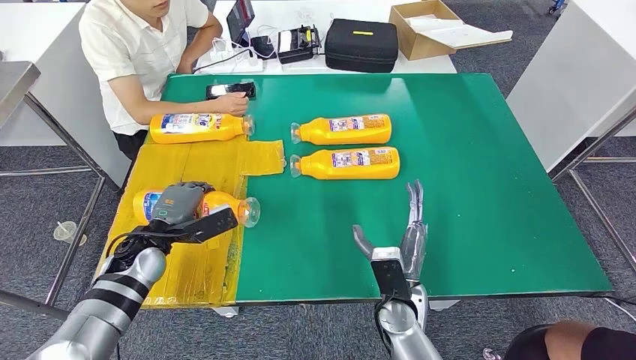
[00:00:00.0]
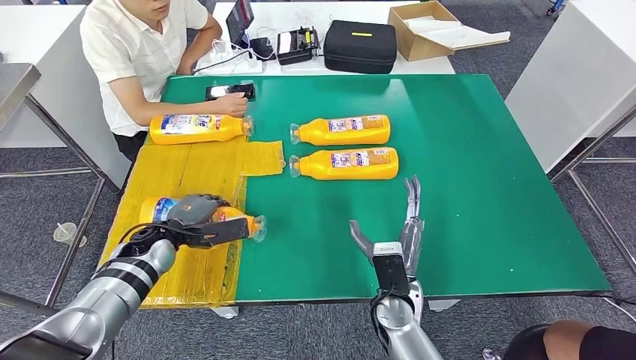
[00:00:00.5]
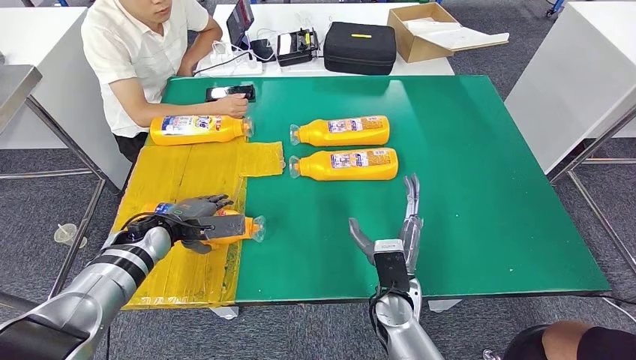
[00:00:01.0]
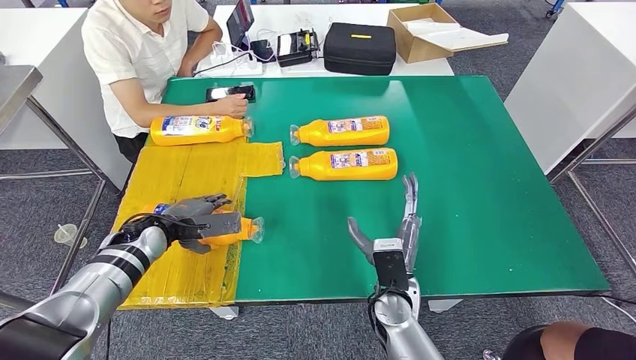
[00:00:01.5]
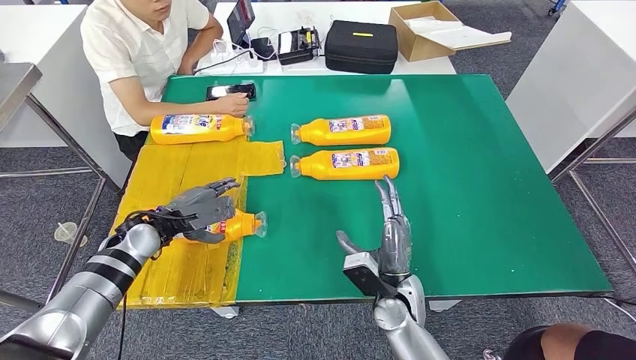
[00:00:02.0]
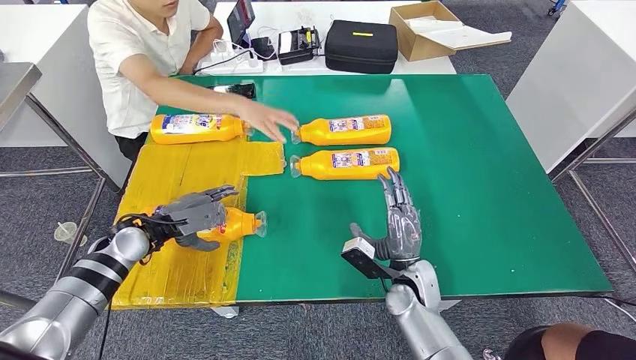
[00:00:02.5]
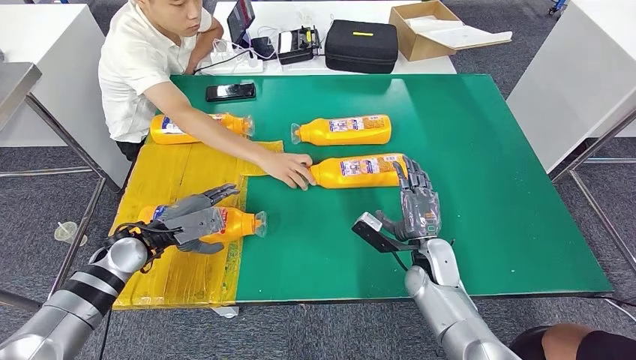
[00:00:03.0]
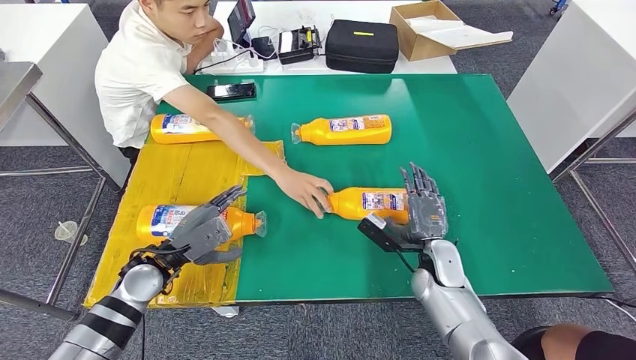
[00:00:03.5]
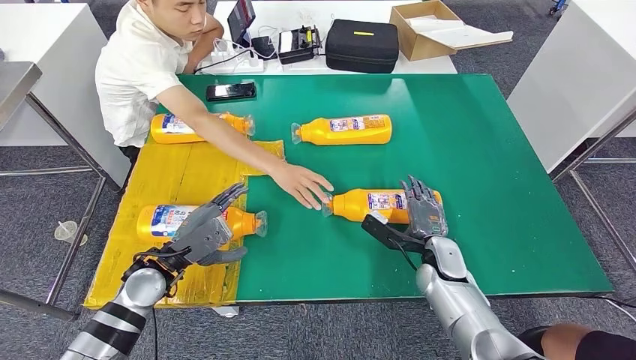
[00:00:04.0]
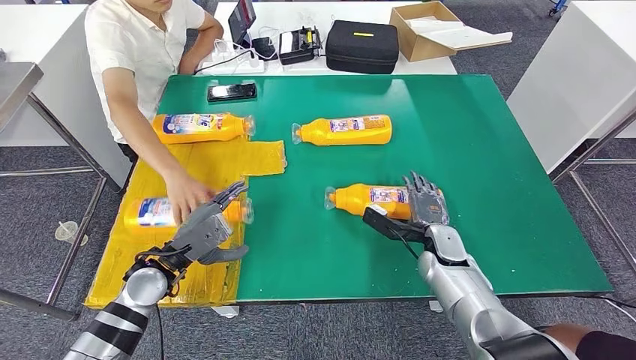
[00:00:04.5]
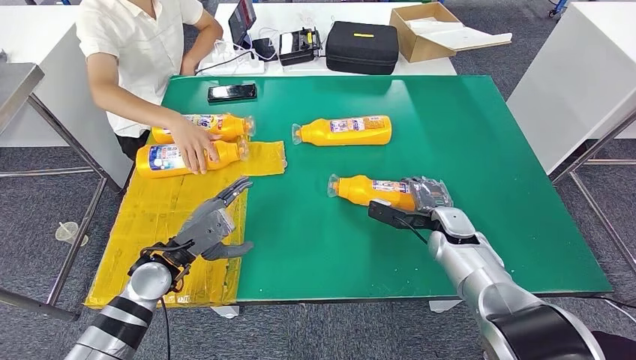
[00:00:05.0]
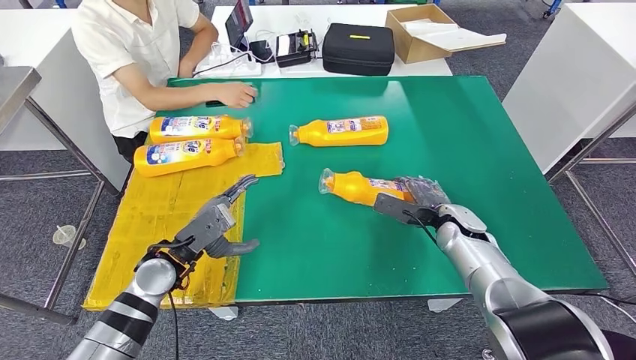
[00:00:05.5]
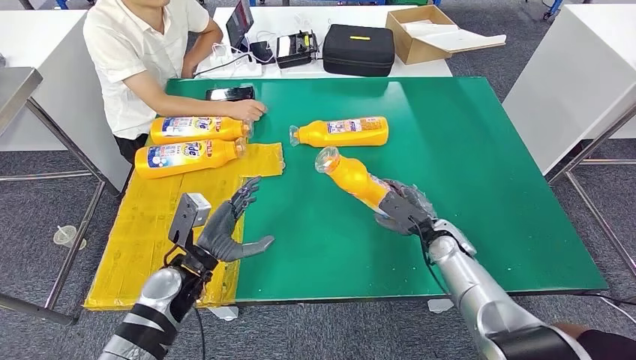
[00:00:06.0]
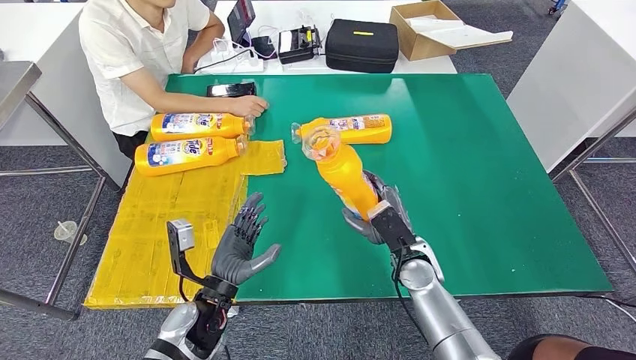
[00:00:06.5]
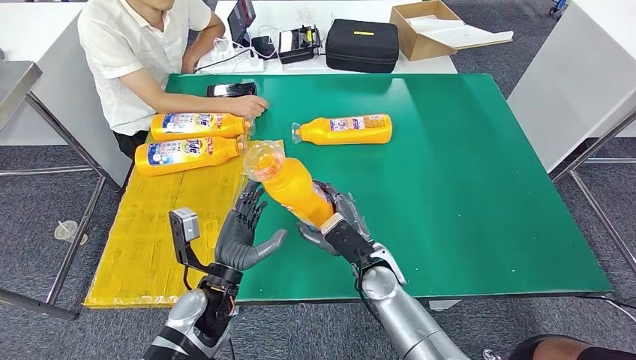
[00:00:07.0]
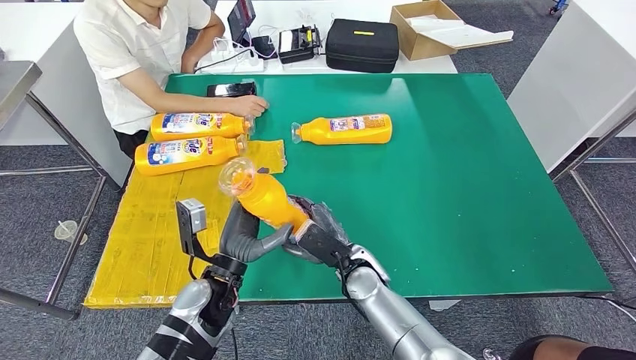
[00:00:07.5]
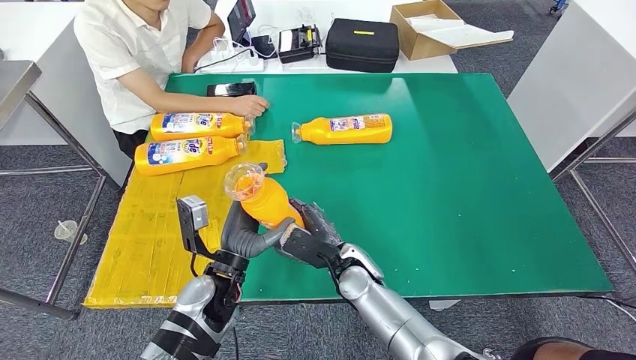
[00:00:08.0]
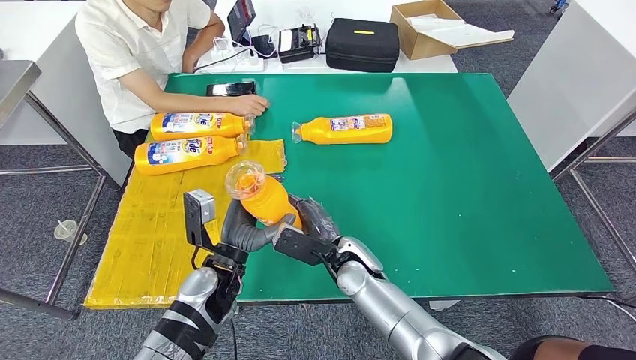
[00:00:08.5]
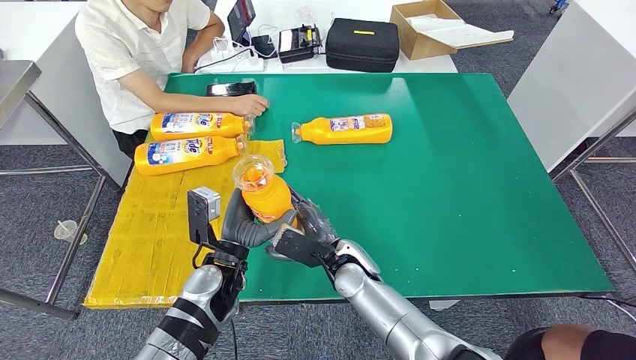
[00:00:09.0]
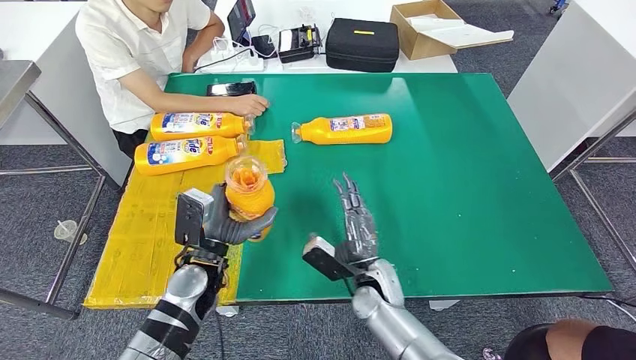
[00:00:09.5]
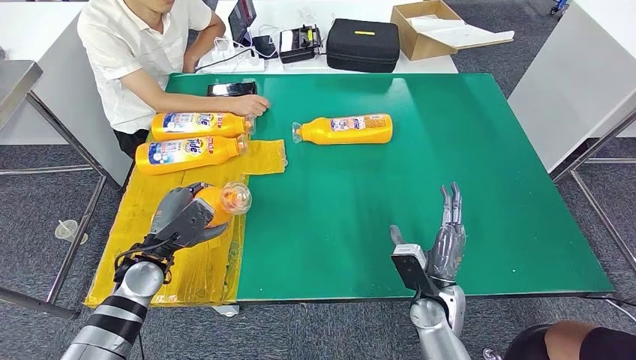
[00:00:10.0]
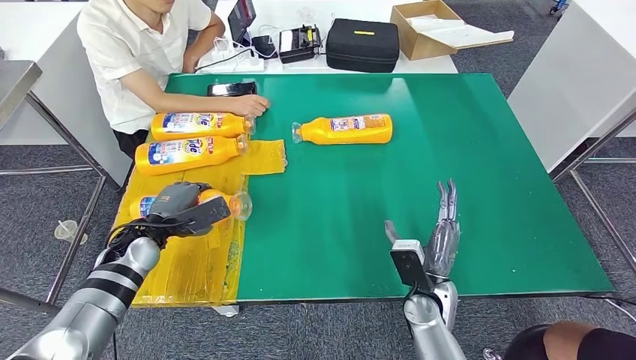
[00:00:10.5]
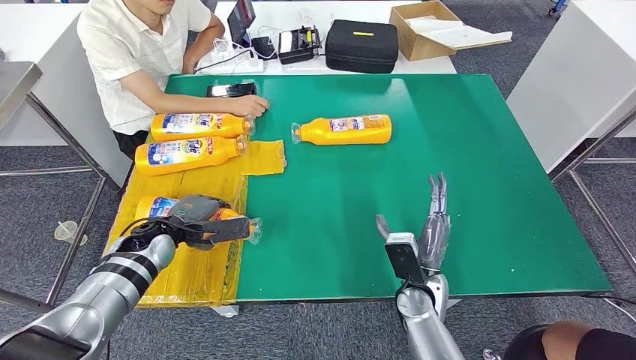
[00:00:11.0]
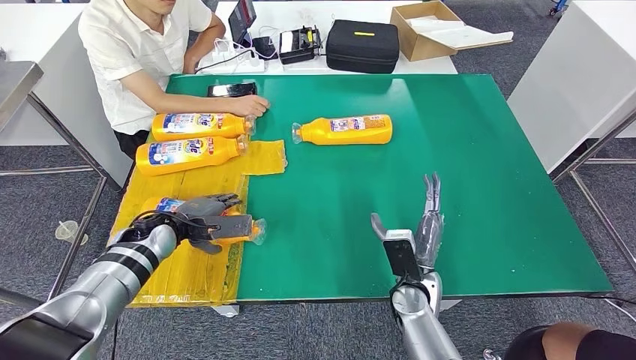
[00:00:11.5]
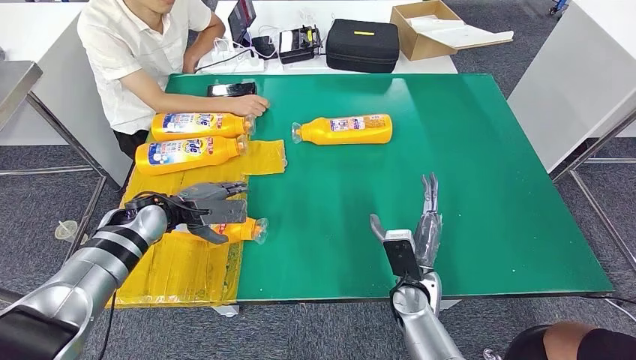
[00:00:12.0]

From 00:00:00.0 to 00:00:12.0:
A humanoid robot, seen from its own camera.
Step, from 00:00:02.0 to 00:00:07.5: Pick up the fast-moving consumer goods bottle from the table.
From 00:00:08.0 to 00:00:10.0: The right hand moves to the right, some 15 cm. The left hand travels to the left by roughly 15 cm.
From 00:00:10.0 to 00:00:12.0: The left hand travels forward by approximately 10 cm.

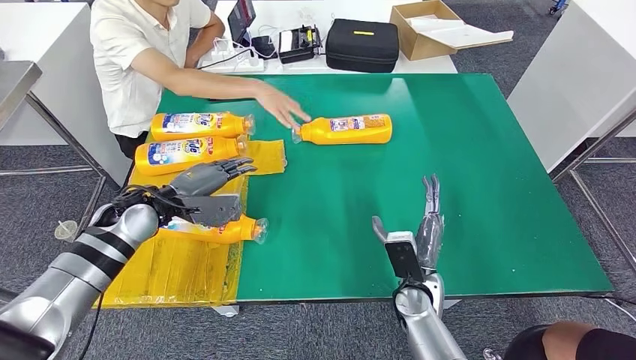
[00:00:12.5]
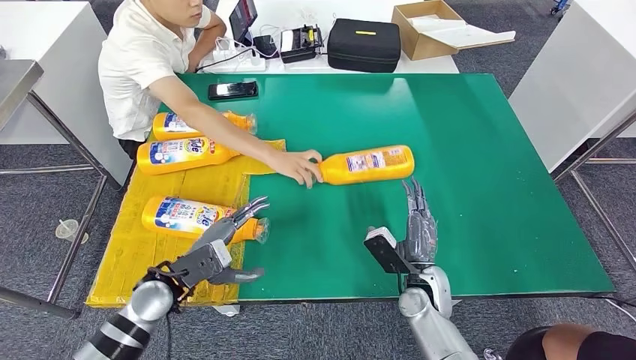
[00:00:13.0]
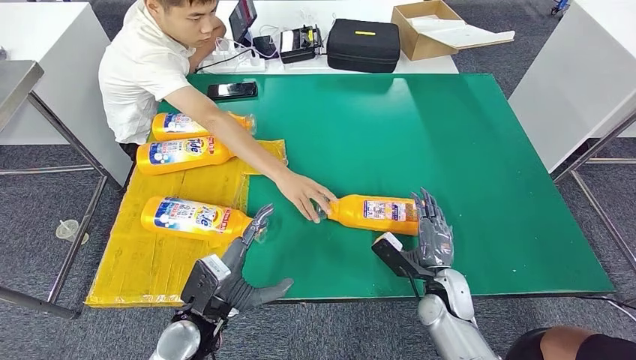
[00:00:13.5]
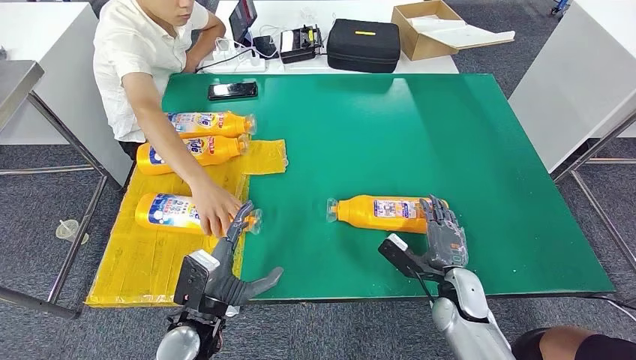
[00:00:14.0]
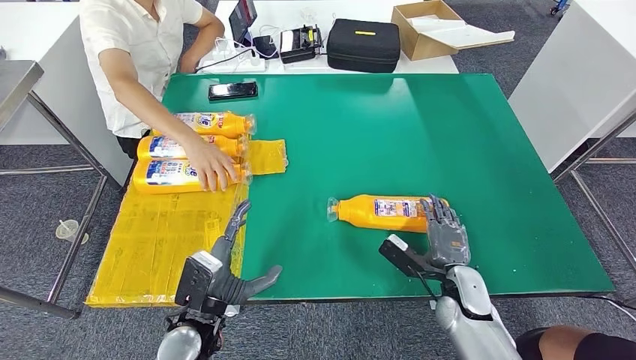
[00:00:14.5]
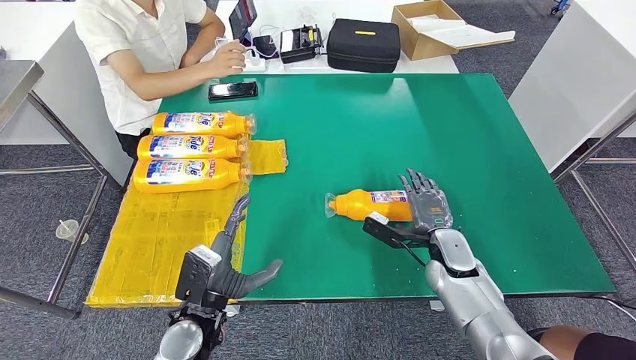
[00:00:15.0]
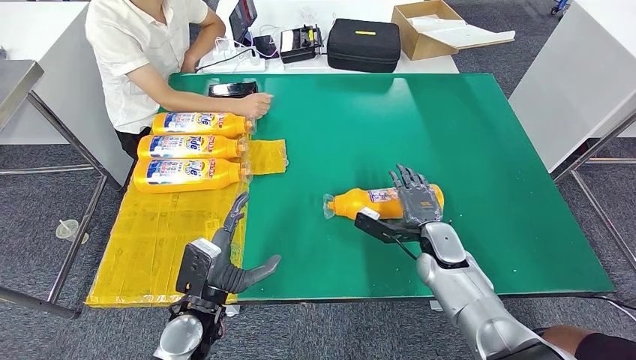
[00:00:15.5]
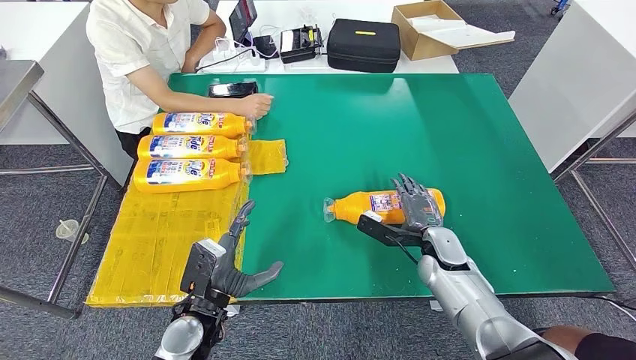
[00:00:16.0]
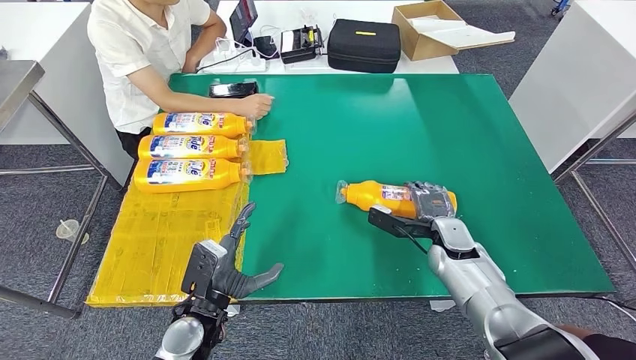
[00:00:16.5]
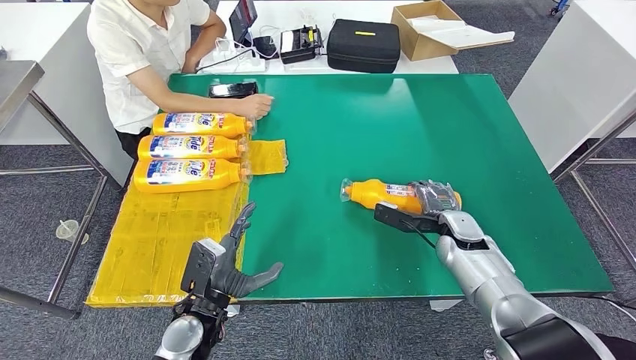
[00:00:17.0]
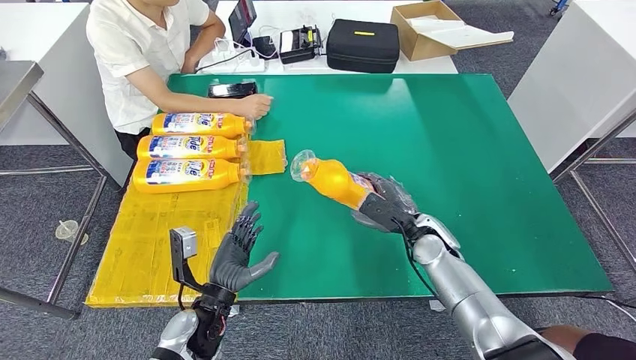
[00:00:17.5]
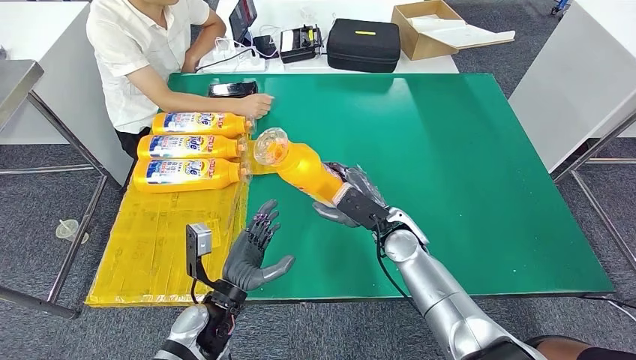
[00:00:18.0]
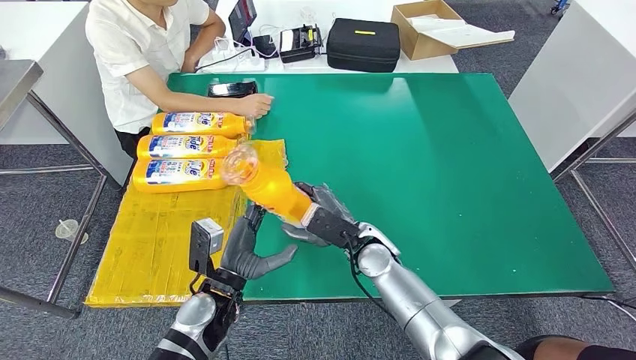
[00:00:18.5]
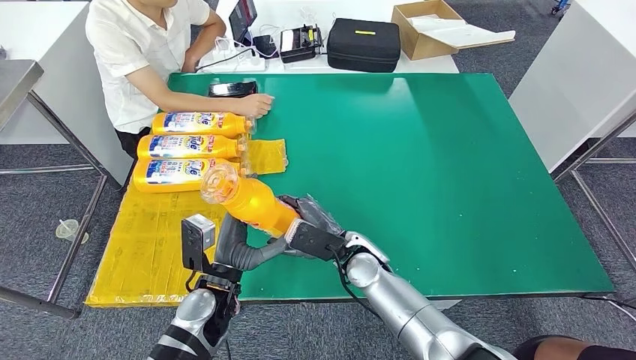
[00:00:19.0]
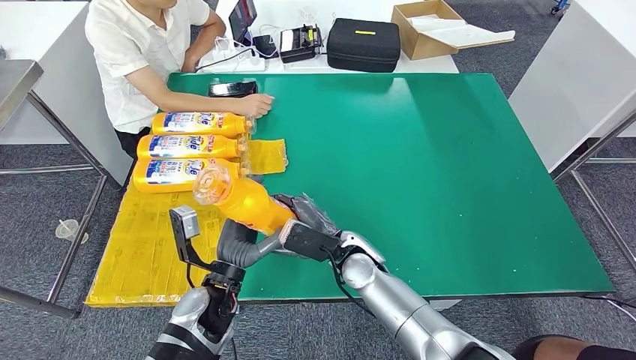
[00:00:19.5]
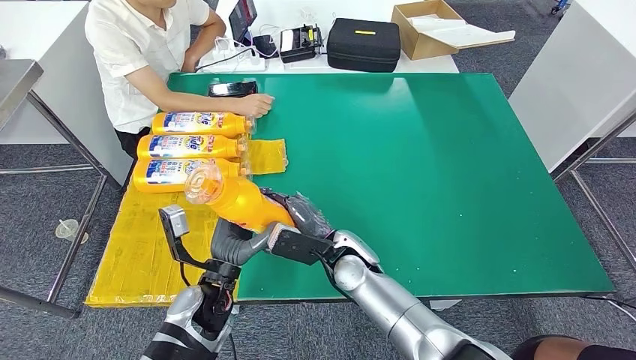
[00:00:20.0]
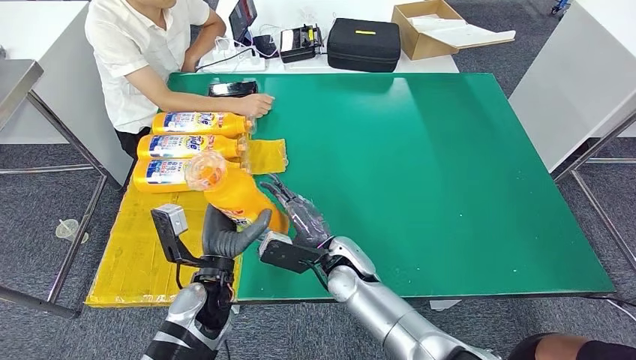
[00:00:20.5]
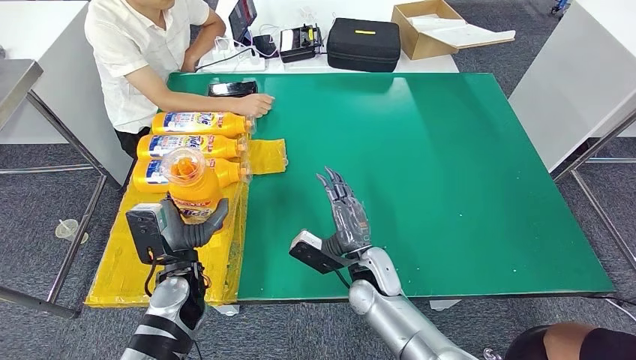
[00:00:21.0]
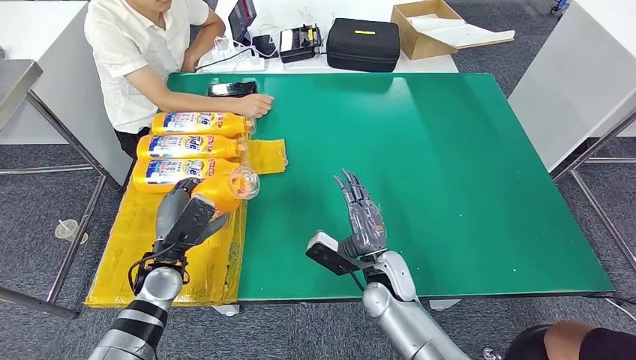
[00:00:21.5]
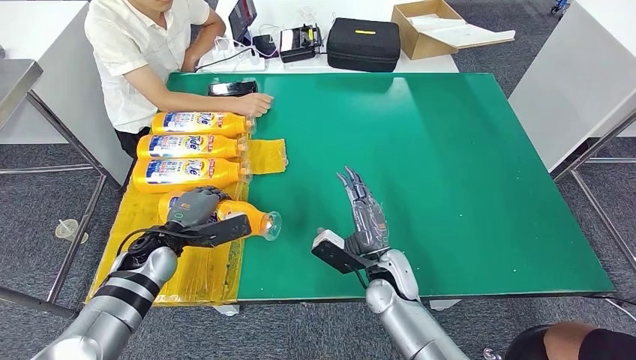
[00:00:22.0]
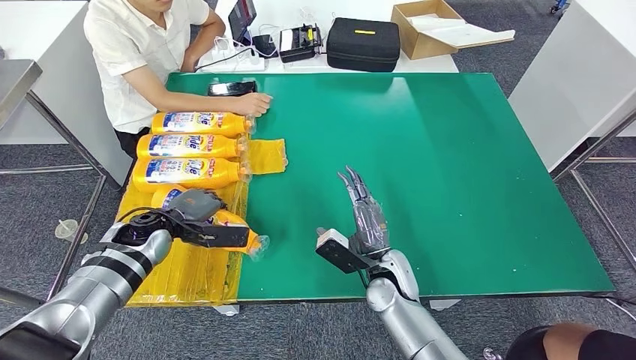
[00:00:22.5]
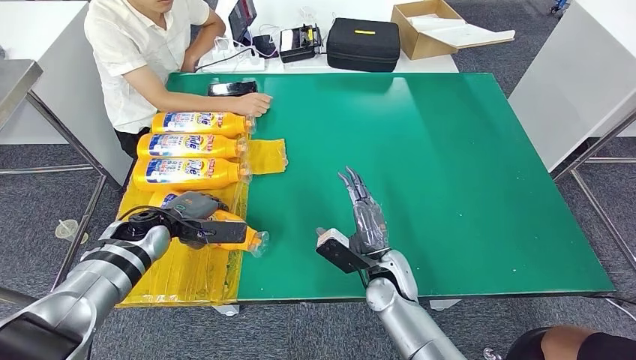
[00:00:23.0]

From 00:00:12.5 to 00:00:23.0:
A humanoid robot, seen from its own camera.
Step, from 00:00:12.5 to 00:00:18.5: Pick up the fast-moving consumer goods bottle from the table.
Step, from 00:00:19.0 to 00:00:23.0: Flip the fast-moving consumer goods bottle to the front side.
From 00:00:14.5 to 00:00:16.5: The right hand moves forward, about 10 cm.
From 00:00:16.5 to 00:00:19.0: The right hand travels to the left by some 20 cm.
From 00:00:19.0 to 00:00:21.0: The left hand travels to the left by roughly 5 cm.
From 00:00:21.0 to 00:00:23.0: The left hand moves forward and to the left, approximately 15 cm.
